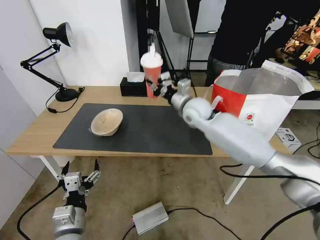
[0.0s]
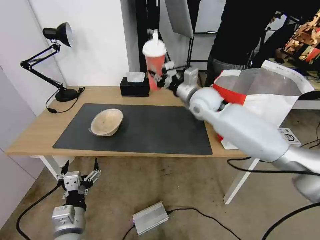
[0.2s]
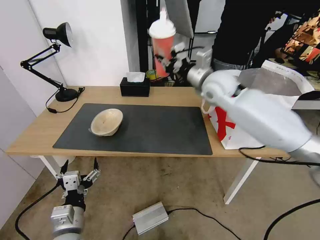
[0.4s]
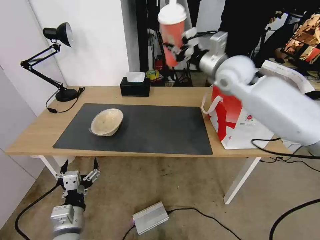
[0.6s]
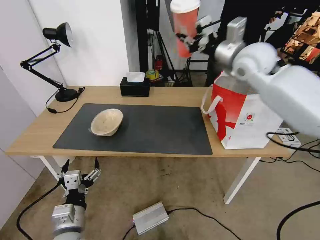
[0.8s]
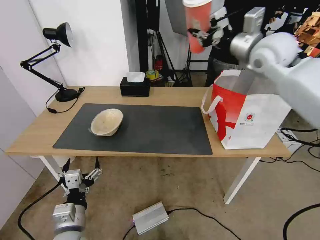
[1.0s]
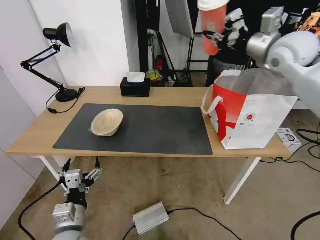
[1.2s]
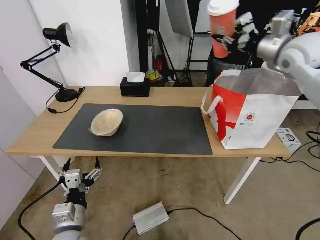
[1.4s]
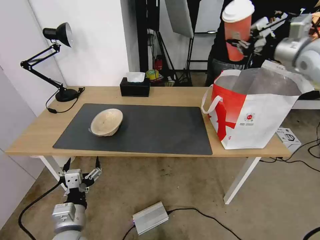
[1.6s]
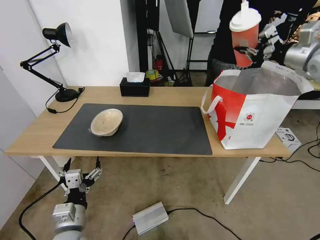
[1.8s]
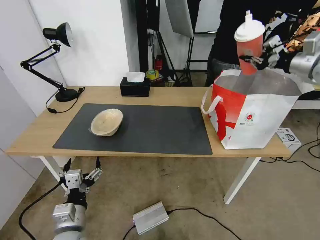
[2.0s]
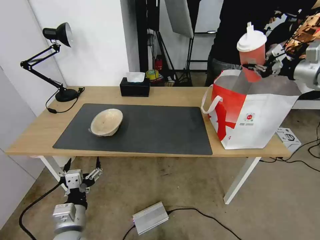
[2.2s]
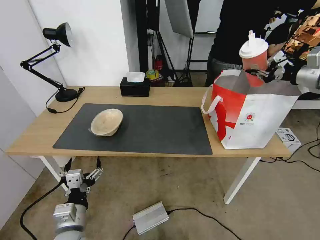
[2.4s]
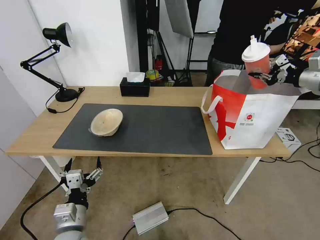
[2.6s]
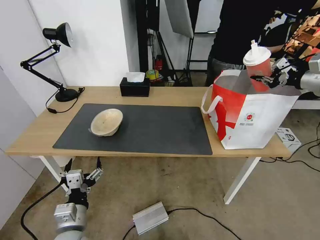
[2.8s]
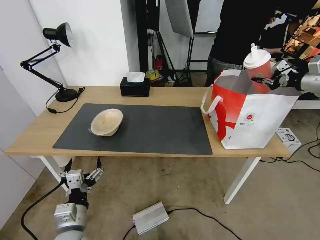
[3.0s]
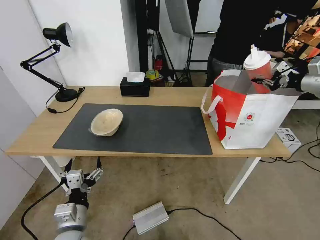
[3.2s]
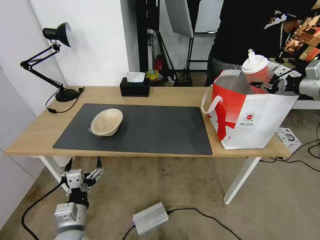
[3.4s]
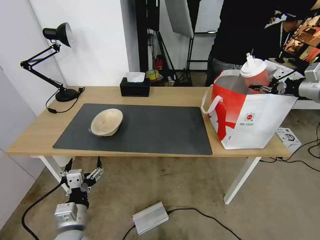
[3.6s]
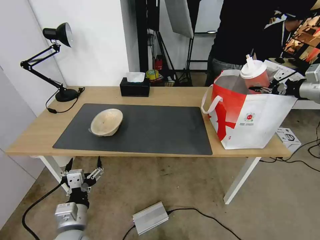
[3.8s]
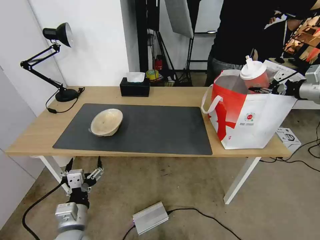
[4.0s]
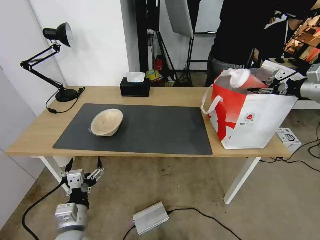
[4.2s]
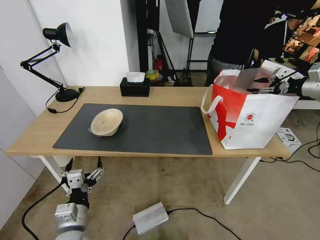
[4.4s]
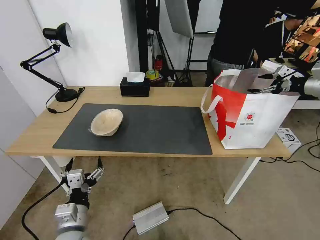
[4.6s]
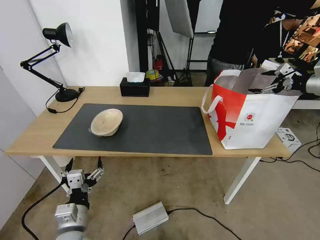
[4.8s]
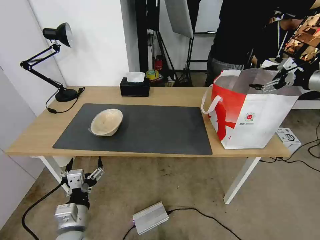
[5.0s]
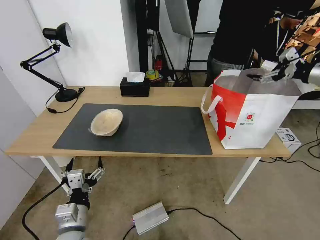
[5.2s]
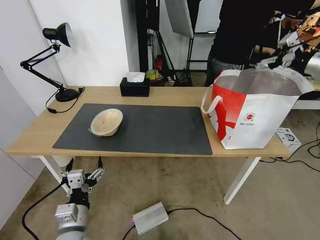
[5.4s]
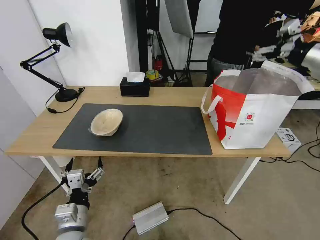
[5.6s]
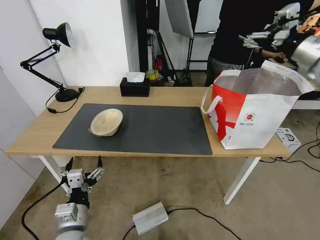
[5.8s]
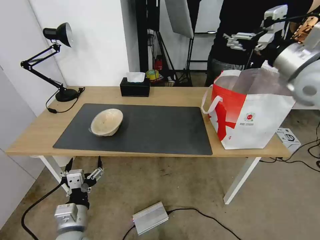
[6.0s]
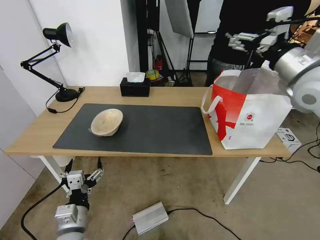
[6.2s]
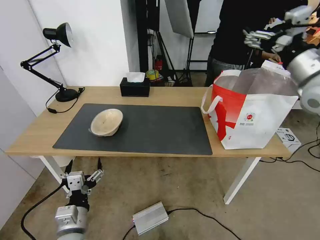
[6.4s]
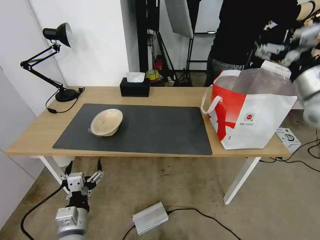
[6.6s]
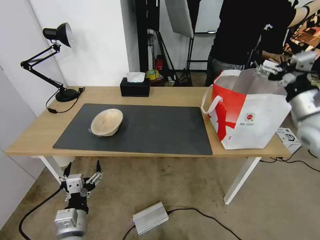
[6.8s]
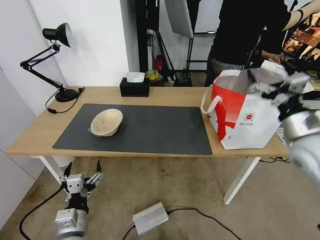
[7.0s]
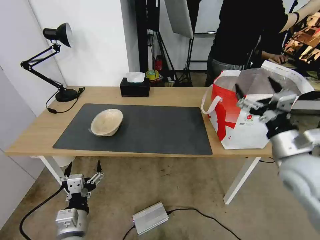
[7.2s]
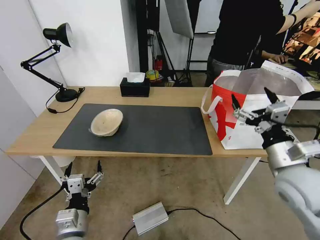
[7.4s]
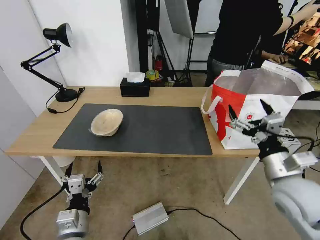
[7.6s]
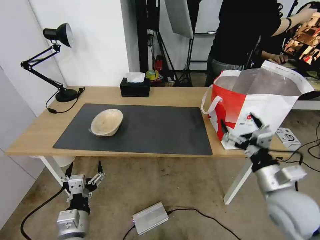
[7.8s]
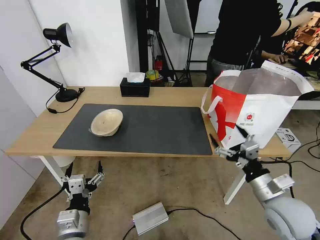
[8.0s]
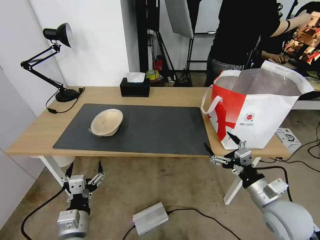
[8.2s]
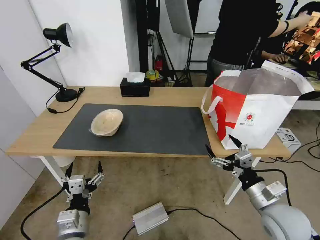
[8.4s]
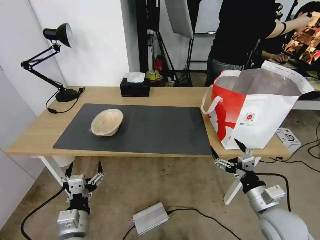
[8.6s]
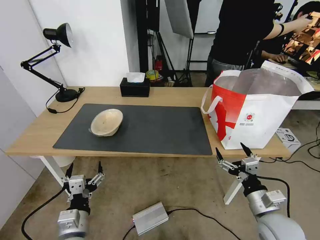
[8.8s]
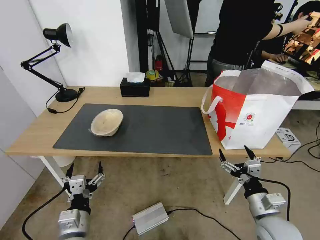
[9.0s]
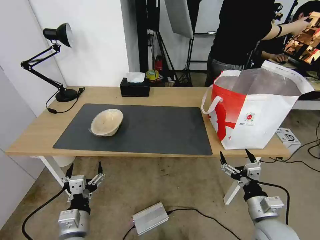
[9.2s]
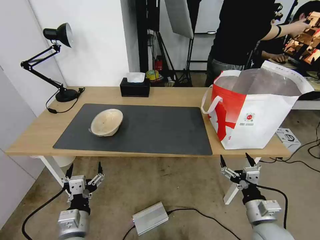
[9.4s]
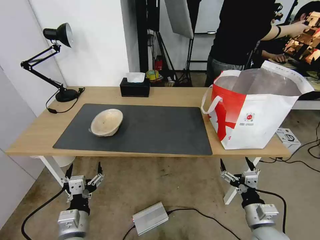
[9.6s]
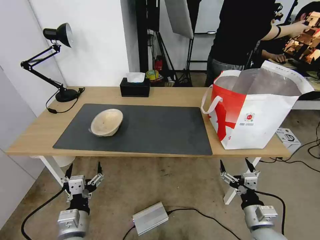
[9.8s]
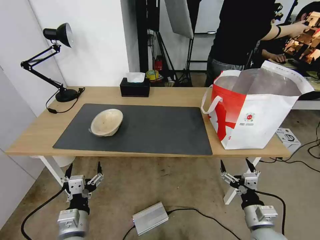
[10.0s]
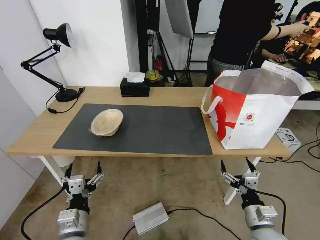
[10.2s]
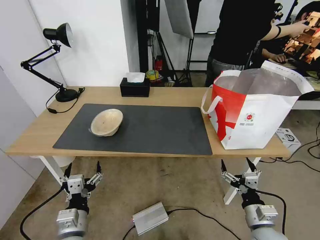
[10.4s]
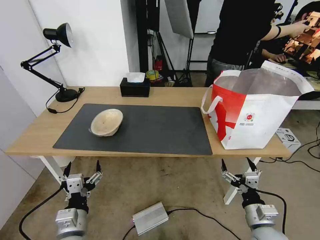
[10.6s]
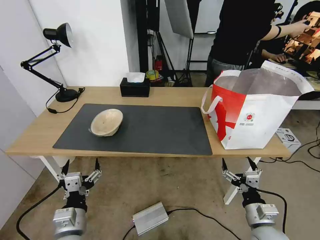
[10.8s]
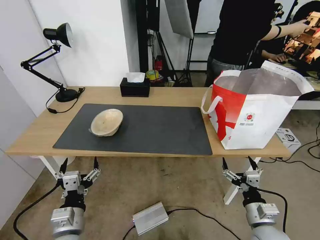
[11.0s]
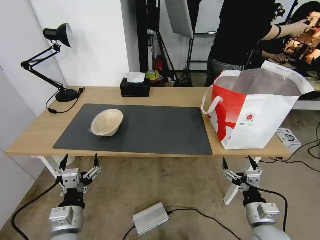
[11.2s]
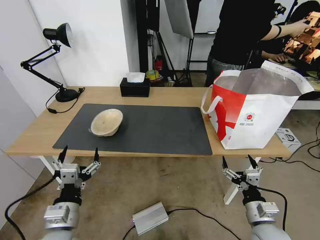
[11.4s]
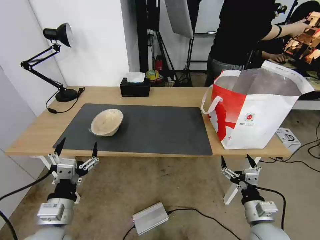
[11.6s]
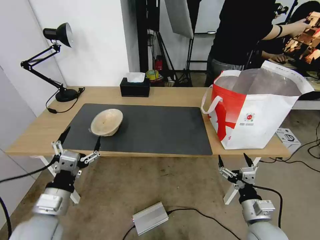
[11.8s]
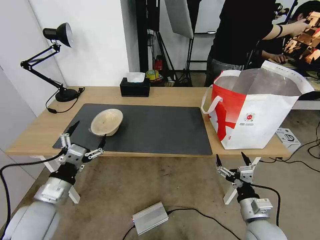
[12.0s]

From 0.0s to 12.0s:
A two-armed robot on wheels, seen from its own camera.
Task of the whole recording: Pick up the trash from the table and place it into the takeout bag.
From 0.0s to 1.6s: The right gripper heads to the right and upward, covering roughly 35 cm.
From 1.6s to 3.0s: The right gripper travels to the right and downward by approximately 15 cm.
From 3.0s to 4.4s: The right gripper opens its fingers.
From 4.4s to 6.0s: The right gripper shifts roughly 20 cm to the left, and opens.
From 6.0s to 7.6s: The right gripper shifts roughly 25 cm downward and backward.
From 7.6s to 9.0s: The right gripper shifts some 15 cm downward and backward.
From 9.0s to 10.4s: The grippers stay close to where they were, moving slightly.
From 10.4s to 12.0s: The left gripper goes some 10 cm to the left, upward and forward.

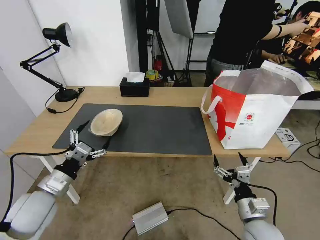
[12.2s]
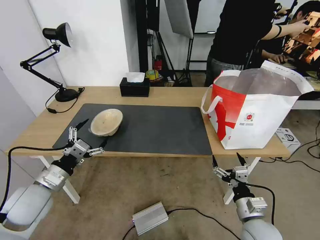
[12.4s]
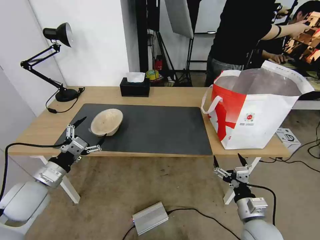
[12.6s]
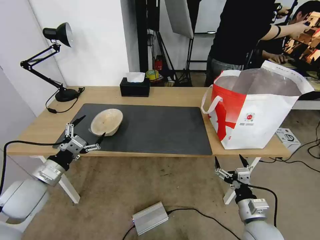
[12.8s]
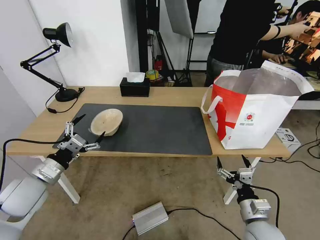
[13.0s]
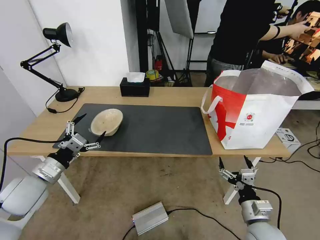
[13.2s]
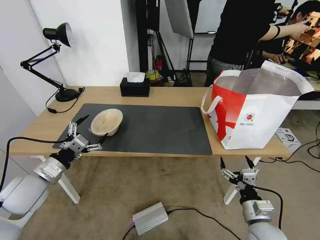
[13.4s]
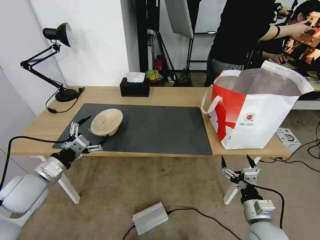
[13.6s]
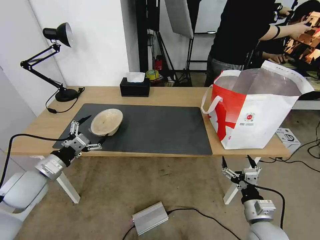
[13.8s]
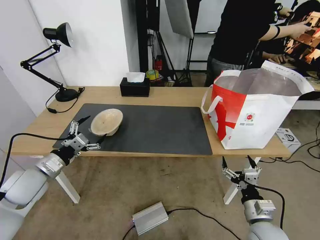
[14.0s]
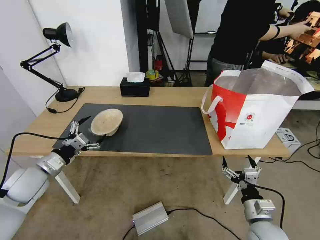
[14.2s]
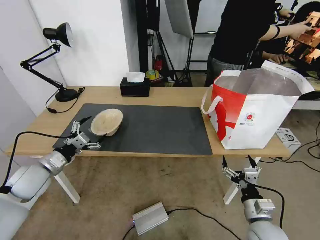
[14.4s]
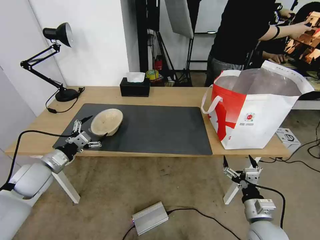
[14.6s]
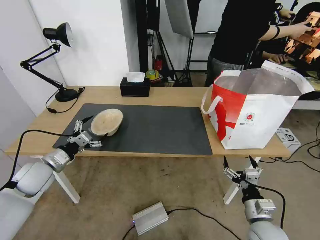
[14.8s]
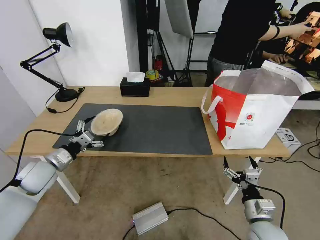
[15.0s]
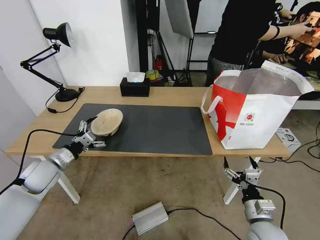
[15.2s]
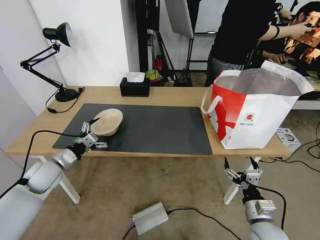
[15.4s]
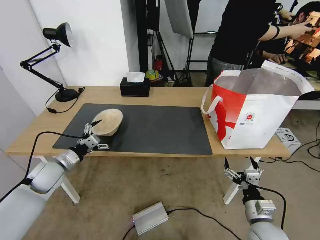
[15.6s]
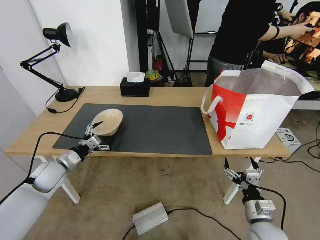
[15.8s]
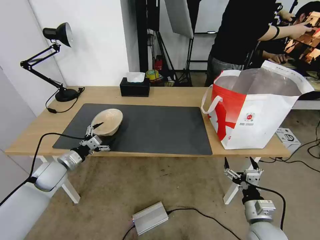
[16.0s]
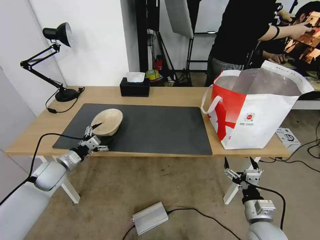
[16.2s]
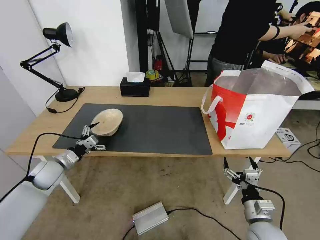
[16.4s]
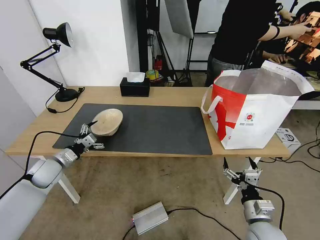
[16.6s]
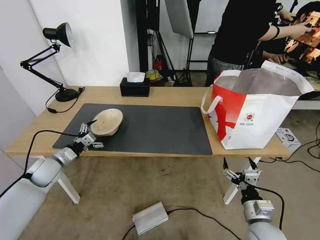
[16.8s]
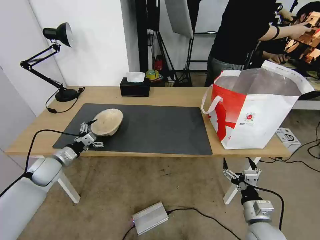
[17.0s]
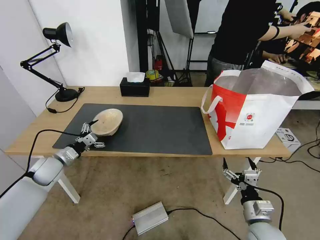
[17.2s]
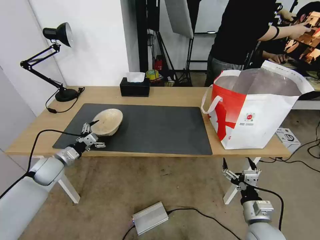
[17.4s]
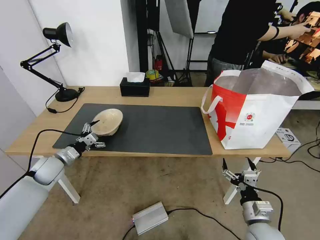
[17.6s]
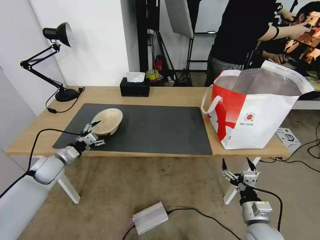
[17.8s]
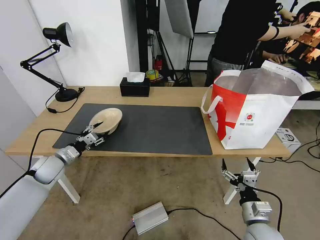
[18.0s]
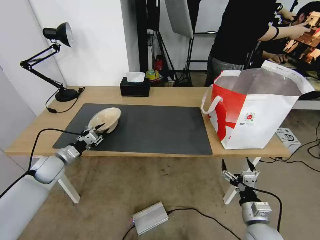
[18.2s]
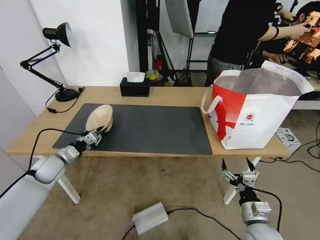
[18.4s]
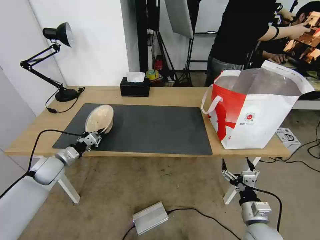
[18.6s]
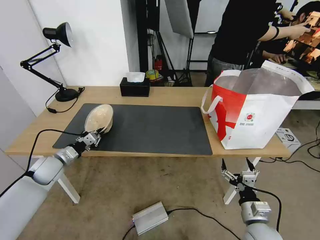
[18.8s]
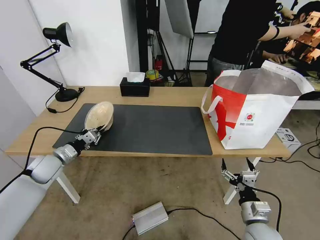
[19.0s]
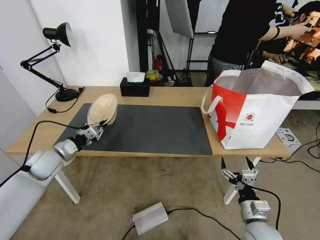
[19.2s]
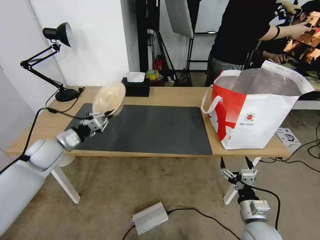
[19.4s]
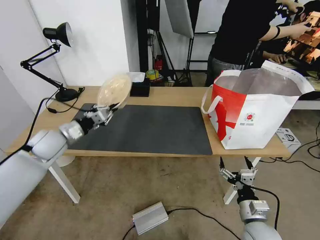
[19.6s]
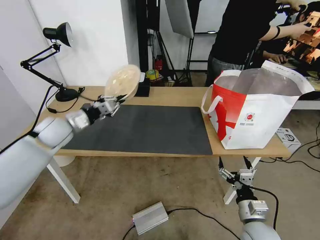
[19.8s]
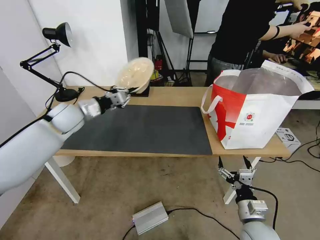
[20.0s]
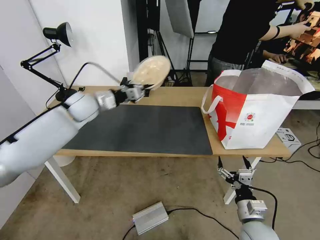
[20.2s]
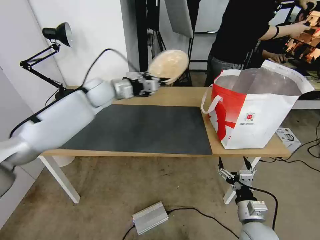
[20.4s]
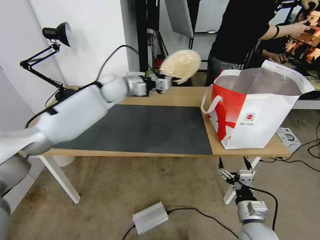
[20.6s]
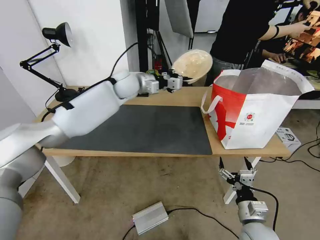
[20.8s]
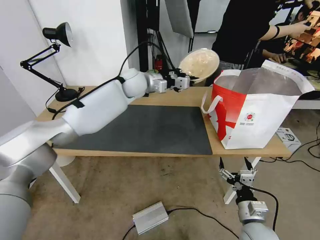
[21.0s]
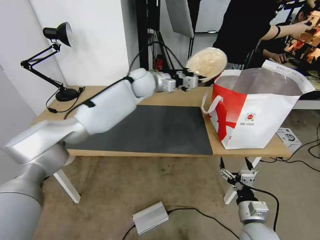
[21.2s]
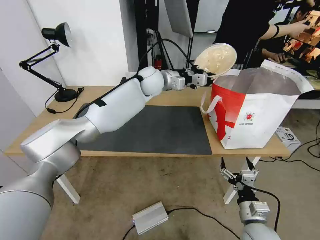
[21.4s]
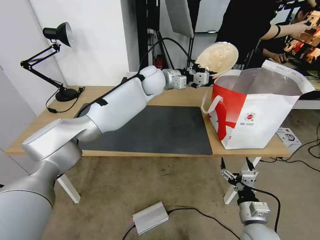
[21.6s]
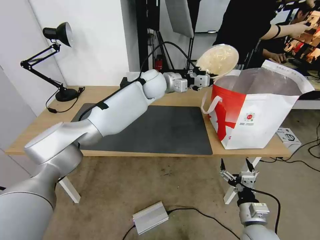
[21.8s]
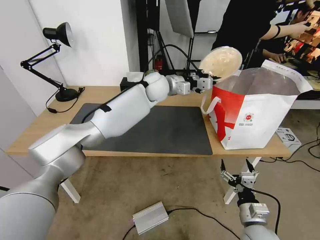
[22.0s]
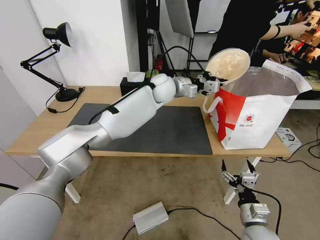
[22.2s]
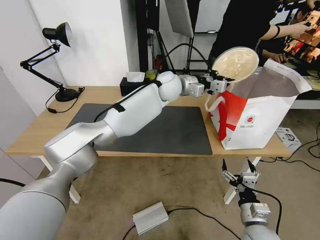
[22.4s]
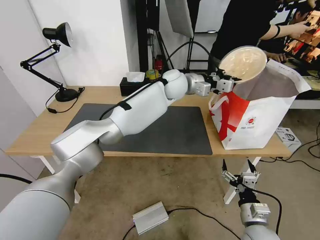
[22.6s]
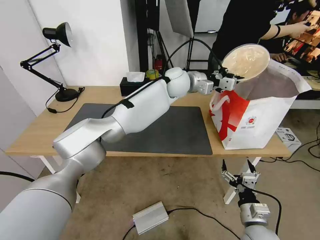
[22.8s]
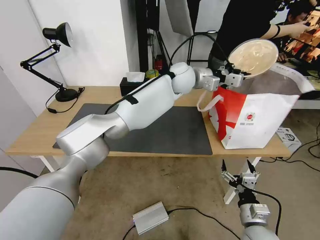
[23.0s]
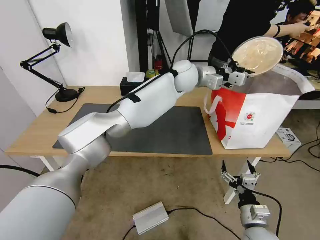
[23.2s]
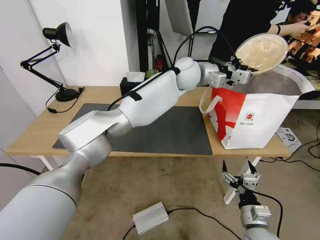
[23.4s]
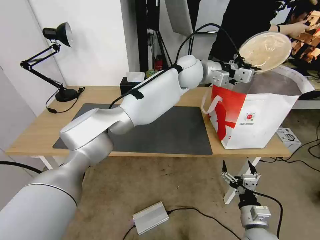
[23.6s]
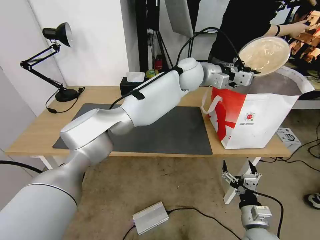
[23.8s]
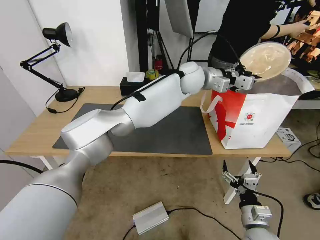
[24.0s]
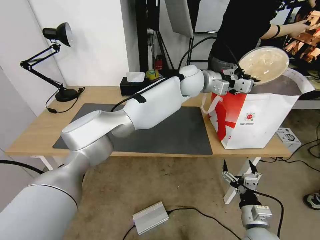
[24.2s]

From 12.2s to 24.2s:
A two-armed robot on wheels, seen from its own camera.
Task of the whole recording: Pick up the trash from the table and place it into the takeout bag.
From 12.2s to 13.8s: The left gripper is displaced forward by approximately 5 cm.
From 13.8s to 15.2s: The left gripper shifts approximately 5 cm forward.
From 15.2s to 16.6s: The left gripper ends up approximately 5 cm from where it was.
From 16.6s to 18.2s: The left gripper closes up.
From 18.2s to 19.8s: The left gripper heads upward and to the right, covering some 15 cm.
From 19.8s to 21.2s: The left gripper travels to the right and forward by some 30 cm.
From 21.2s to 22.6s: The left gripper is displaced to the right by roughly 10 cm.
From 22.6s to 24.2s: The left gripper shifts by roughly 5 cm.
